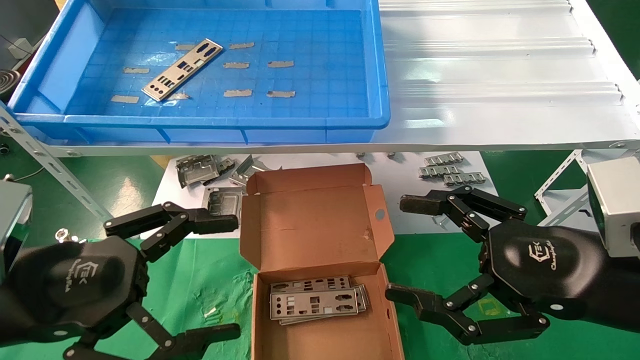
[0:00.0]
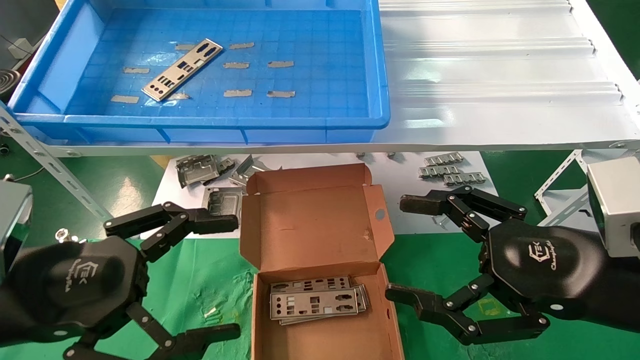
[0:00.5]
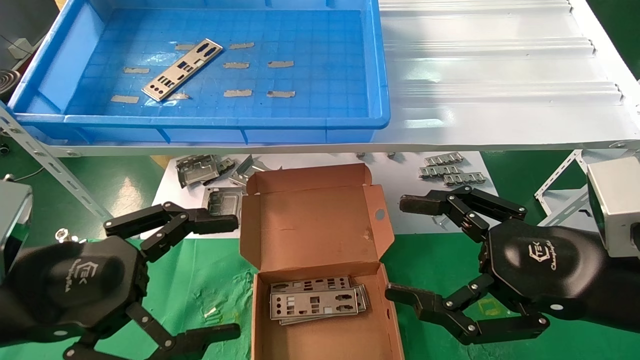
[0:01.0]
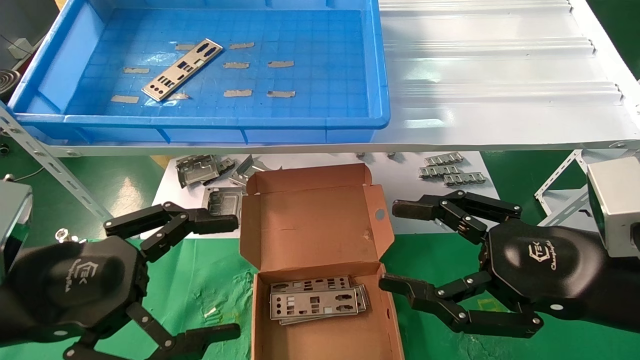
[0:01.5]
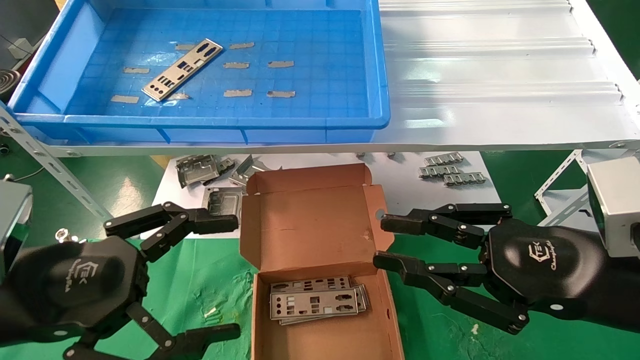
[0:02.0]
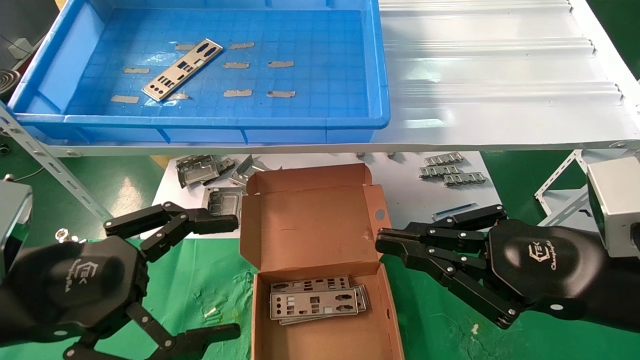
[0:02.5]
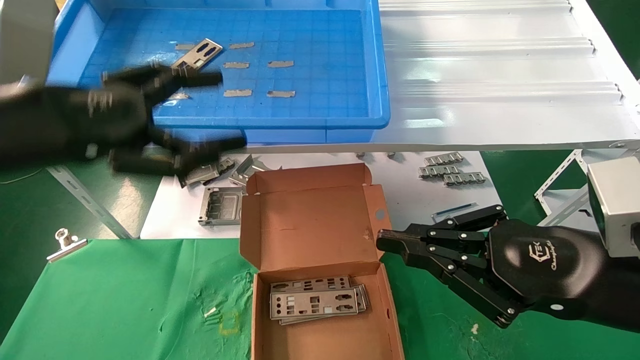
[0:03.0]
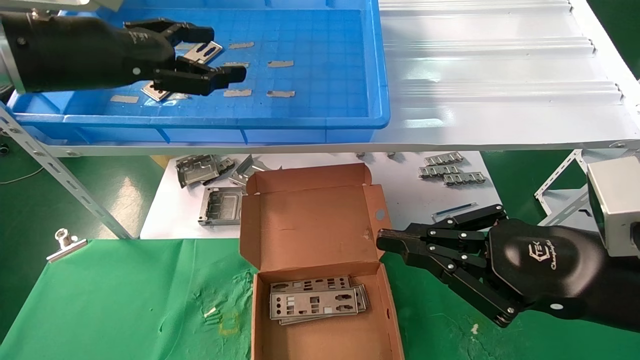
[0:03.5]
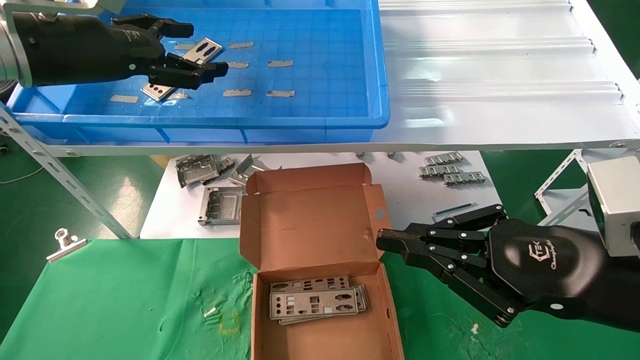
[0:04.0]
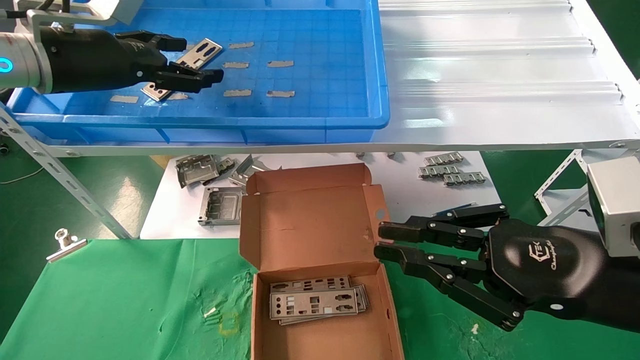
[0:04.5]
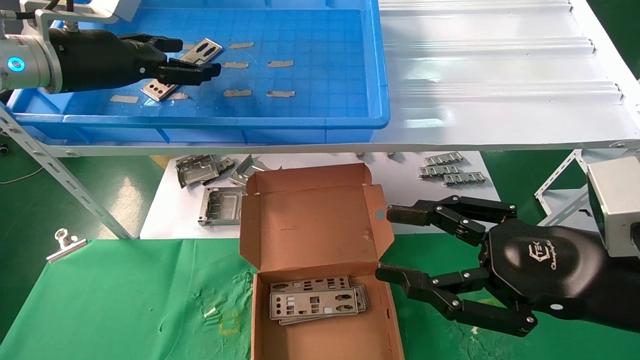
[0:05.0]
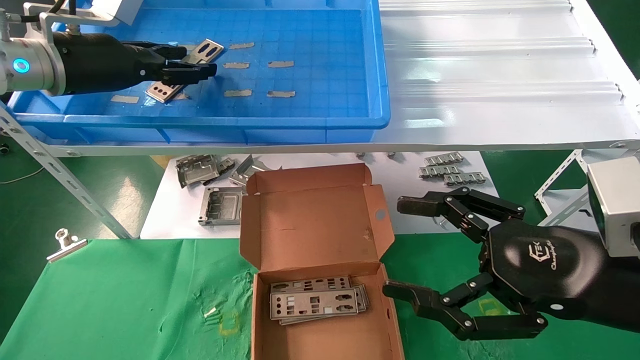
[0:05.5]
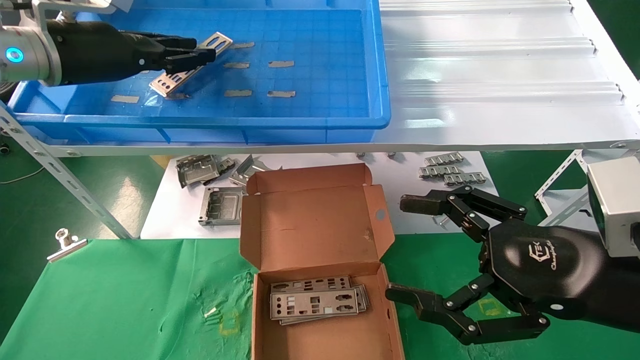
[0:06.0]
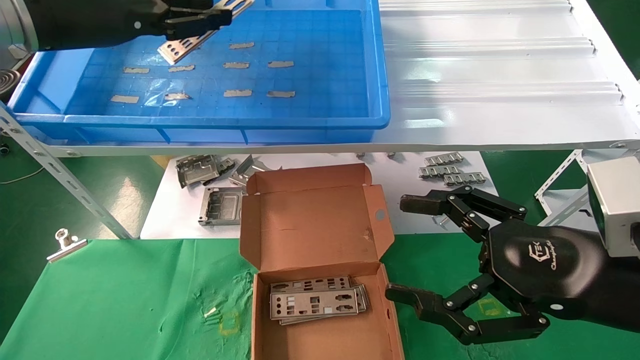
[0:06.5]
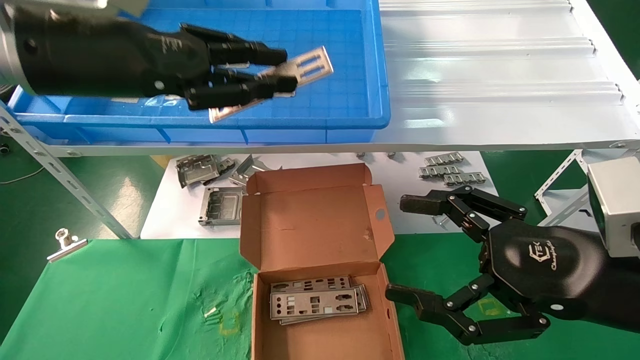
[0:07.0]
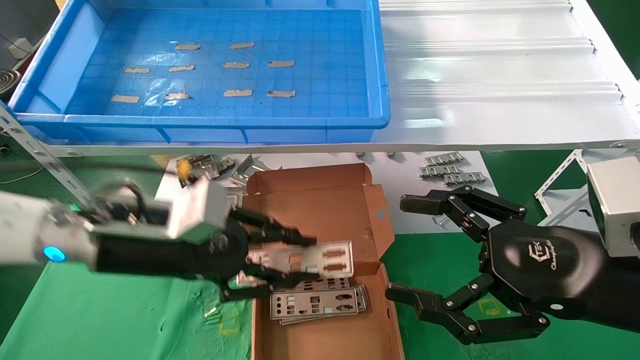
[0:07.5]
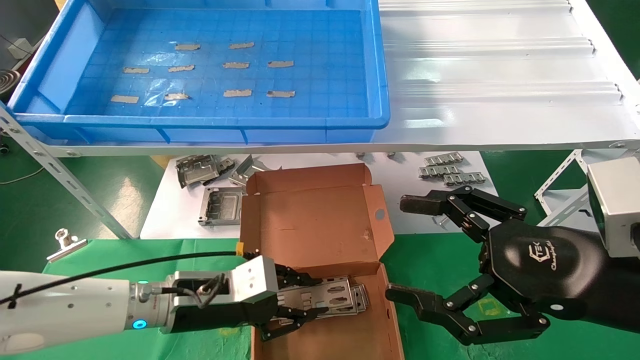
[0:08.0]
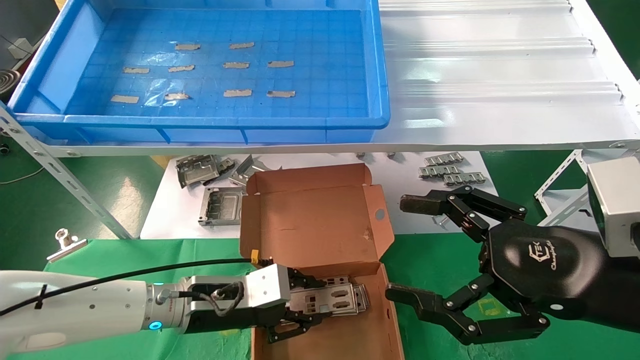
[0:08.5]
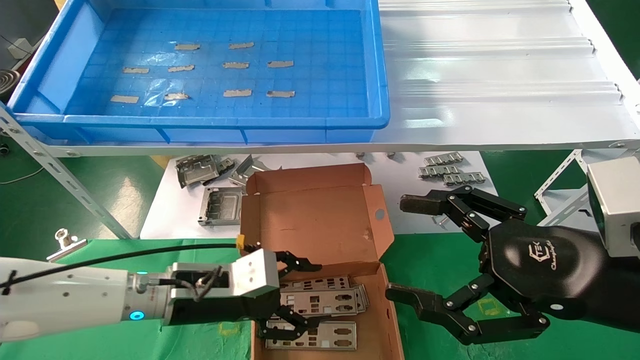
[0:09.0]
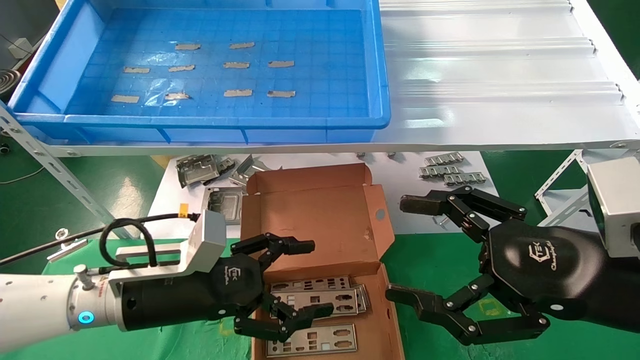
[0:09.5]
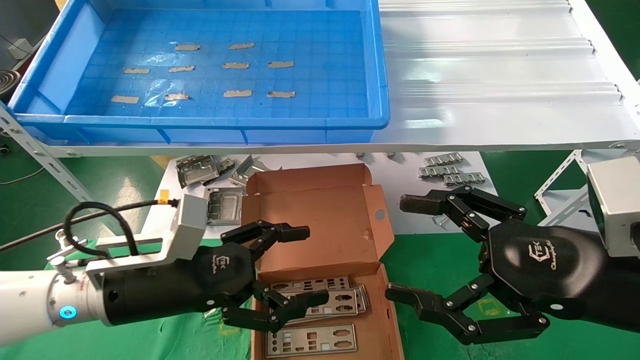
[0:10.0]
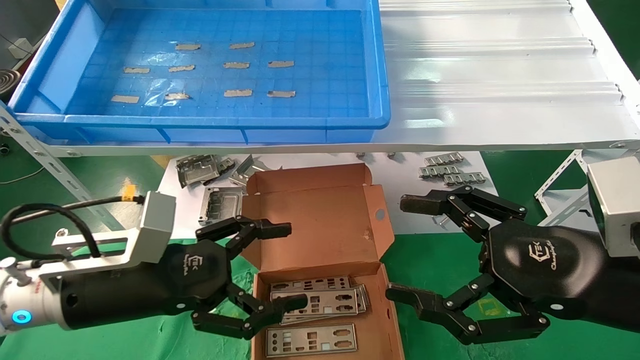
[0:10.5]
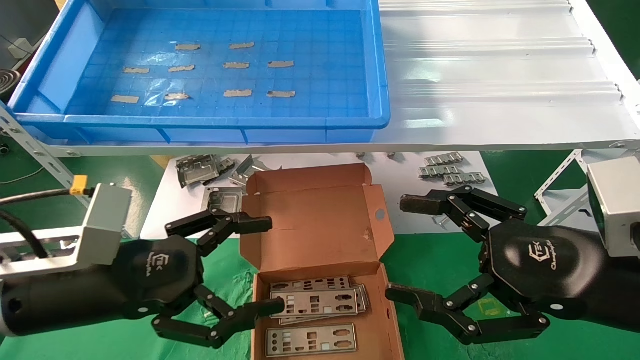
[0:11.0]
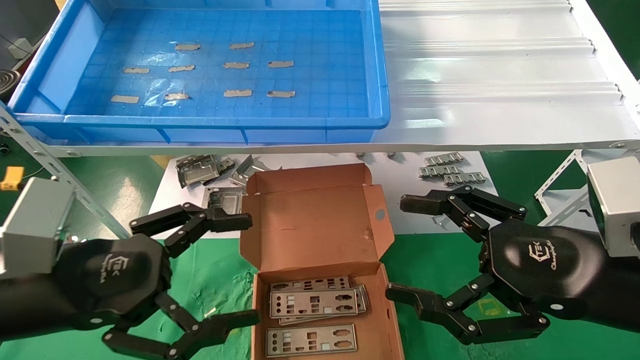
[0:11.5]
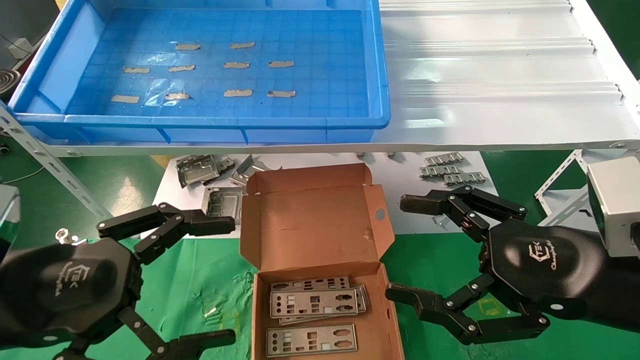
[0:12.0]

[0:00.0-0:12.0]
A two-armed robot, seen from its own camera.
Task of the whole recording: pick up the parts on the tray and put them in the cardboard box.
Step, 0:03.5 to 0:06.0: Pick up the IO bracket from the container box.
Step, 0:06.5 to 0:08.5: Place the IO bracket into the ingredient slot.
0:00.0 to 0:02.0: The right gripper closes.
0:02.0 to 0:04.0: The left gripper shifts some 25 cm upward and forward. Meanwhile the right gripper closes.
0:04.0 to 0:06.0: The right gripper opens. Meanwhile the left gripper closes its fingers.
0:06.0 to 0:08.0: The left gripper heads downward and to the right, covering roughly 30 cm.
0:08.0 to 0:10.0: The left gripper moves backward, about 5 cm, and opens its fingers.
0:10.0 to 0:12.0: The left gripper is displaced backward, upward and to the left by about 15 cm.

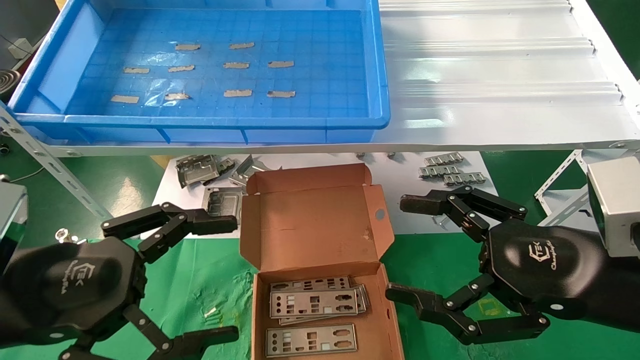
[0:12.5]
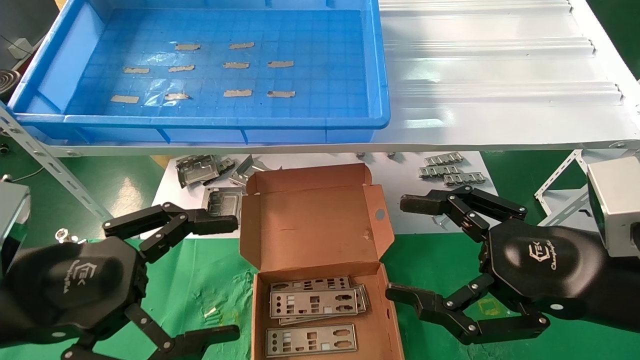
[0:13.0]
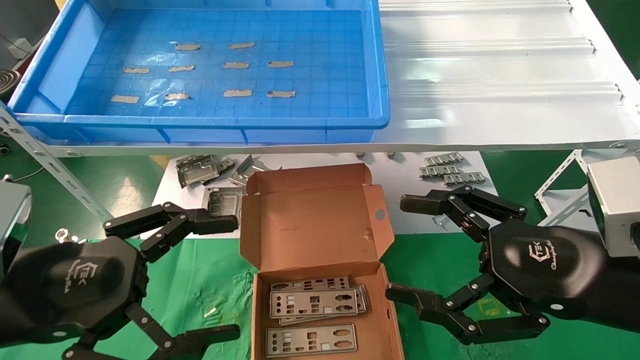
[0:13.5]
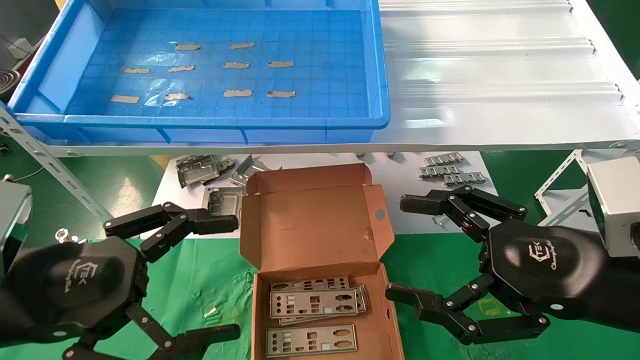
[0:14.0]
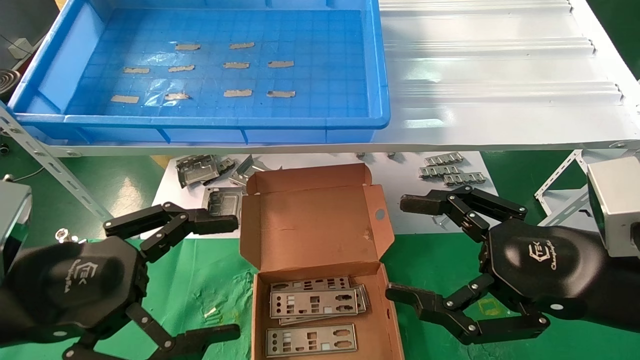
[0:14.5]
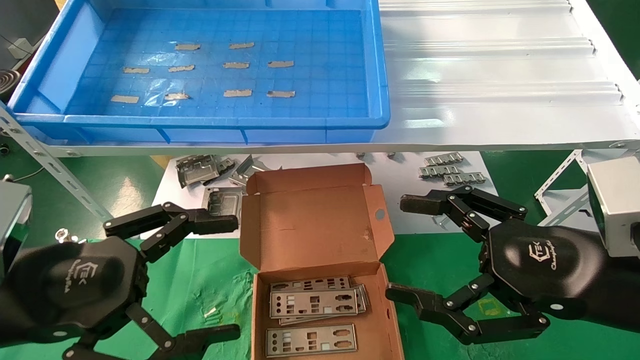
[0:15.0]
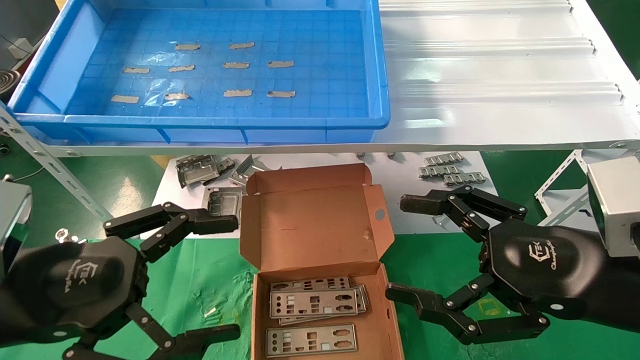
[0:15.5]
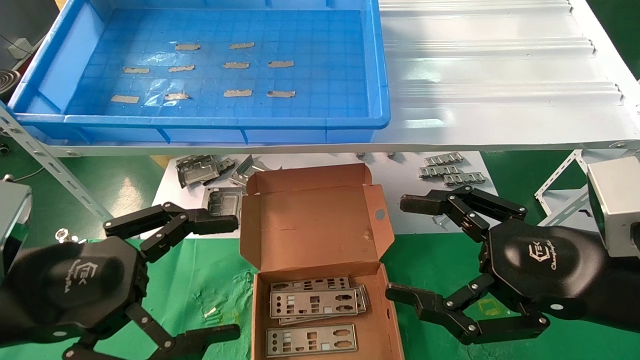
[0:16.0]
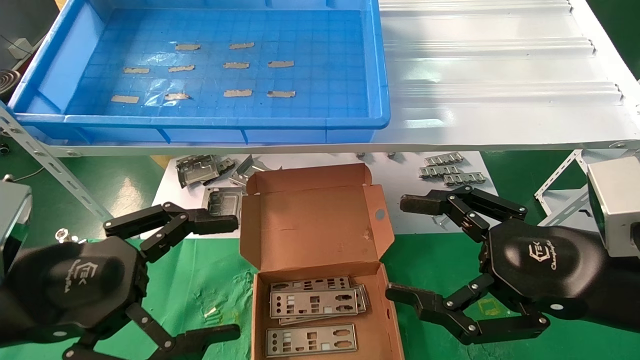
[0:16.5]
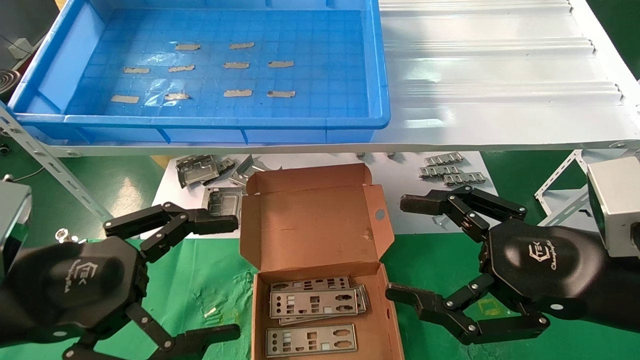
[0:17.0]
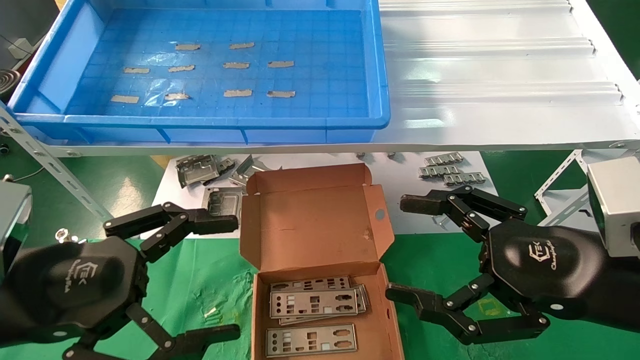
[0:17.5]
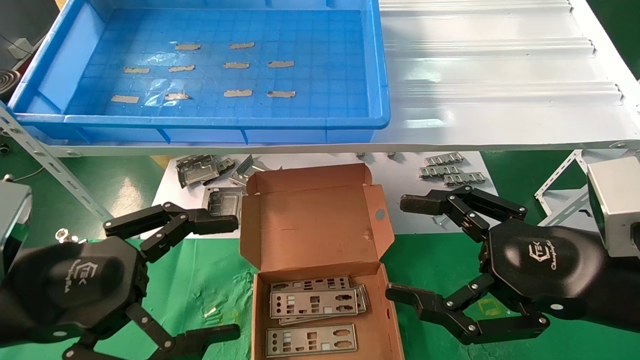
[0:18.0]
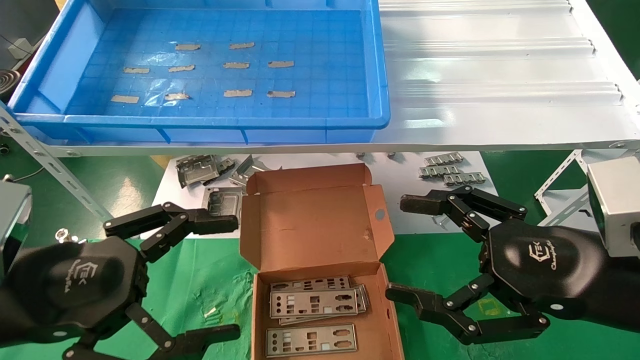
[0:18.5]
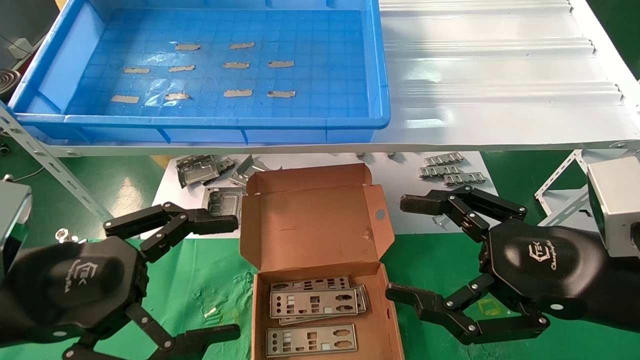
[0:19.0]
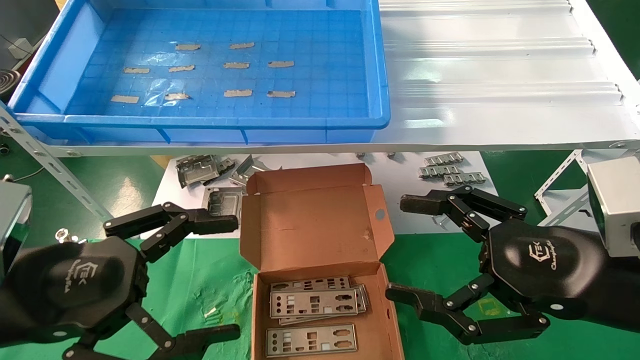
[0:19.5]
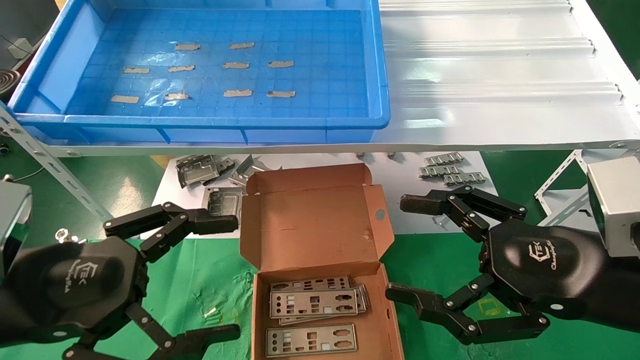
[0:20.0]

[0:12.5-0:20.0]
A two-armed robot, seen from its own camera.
Task of the whole recording: pick up the parts on the tray and put them in the cardboard box.
0:12.5 to 0:20.0: Neither gripper changes place.
